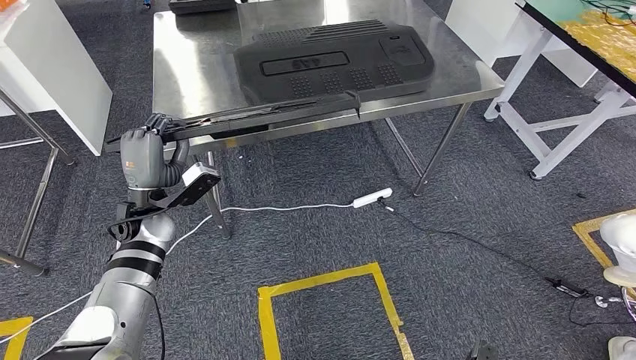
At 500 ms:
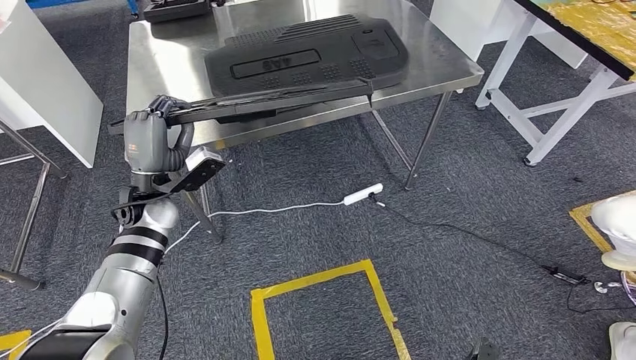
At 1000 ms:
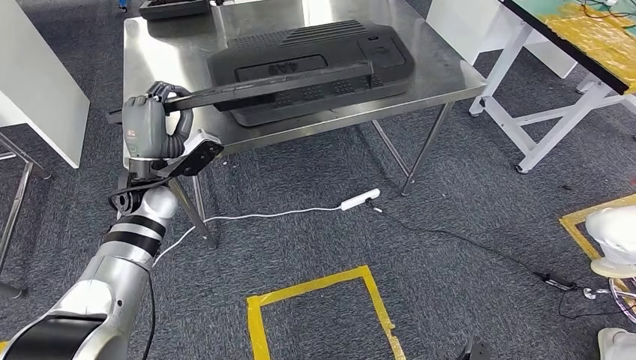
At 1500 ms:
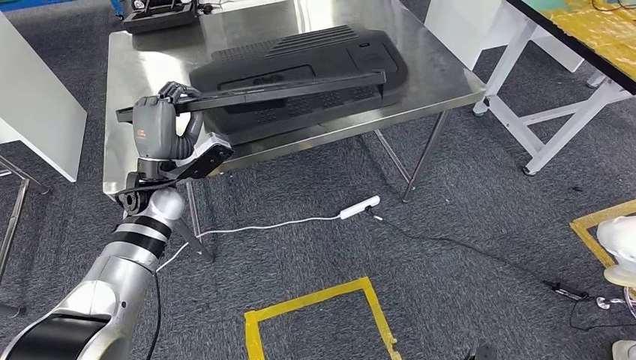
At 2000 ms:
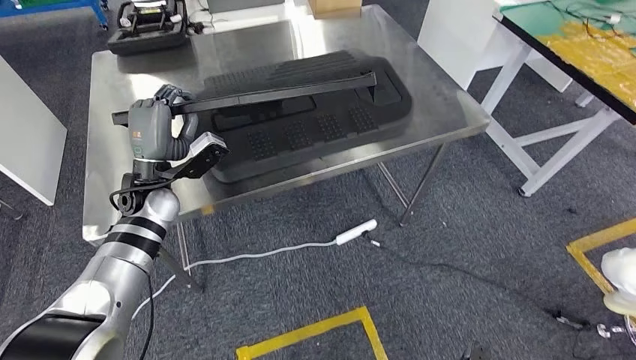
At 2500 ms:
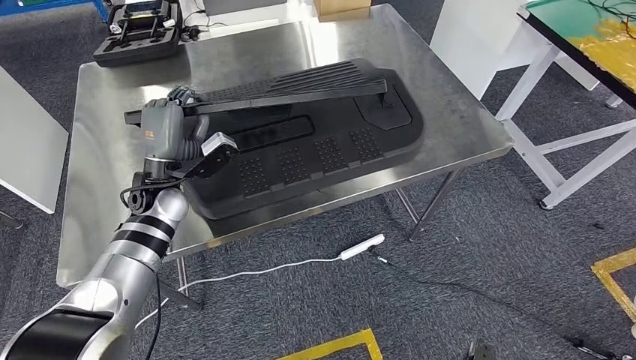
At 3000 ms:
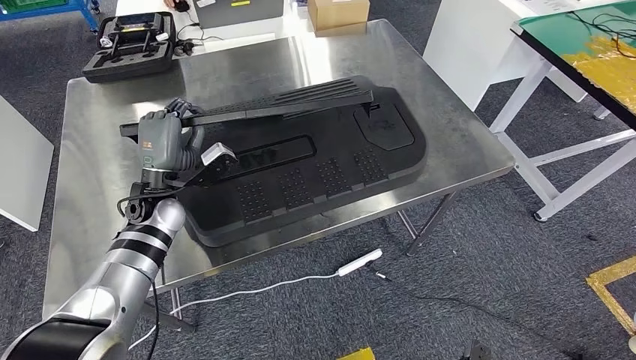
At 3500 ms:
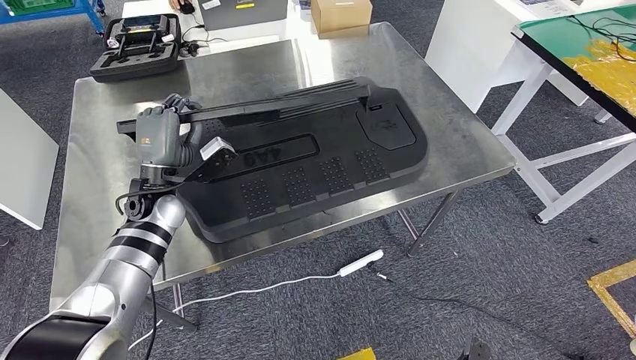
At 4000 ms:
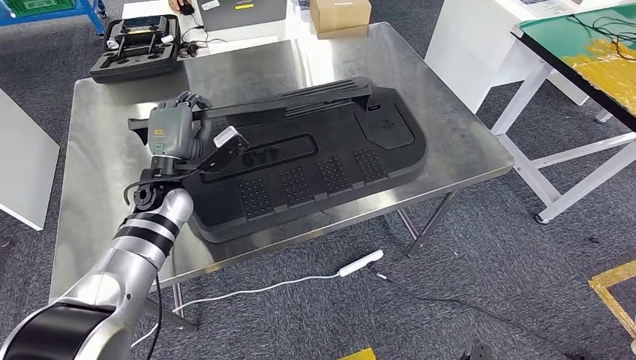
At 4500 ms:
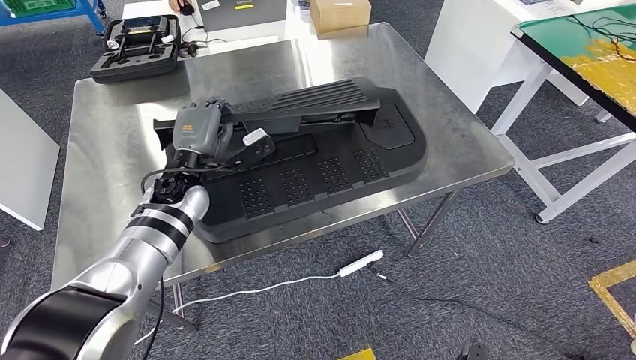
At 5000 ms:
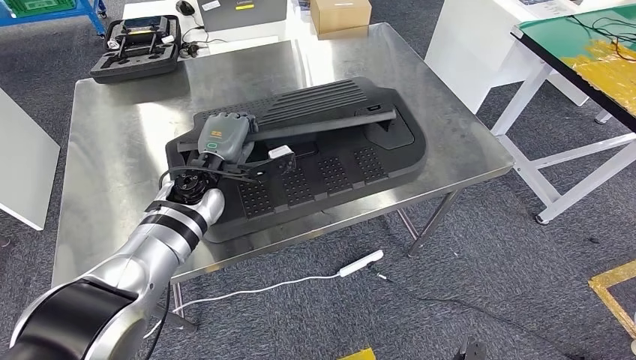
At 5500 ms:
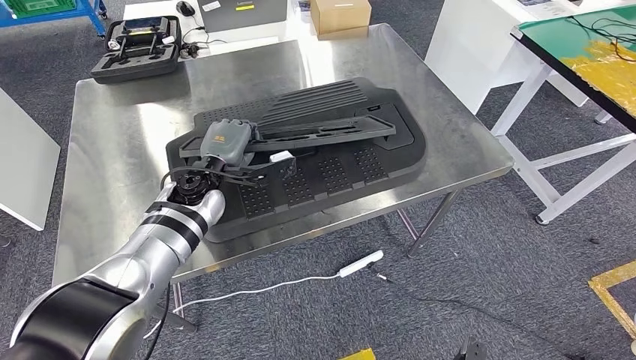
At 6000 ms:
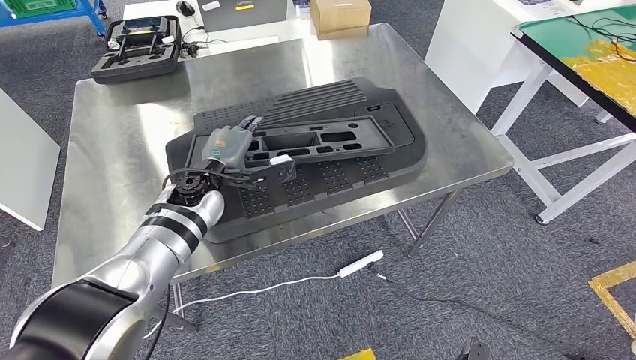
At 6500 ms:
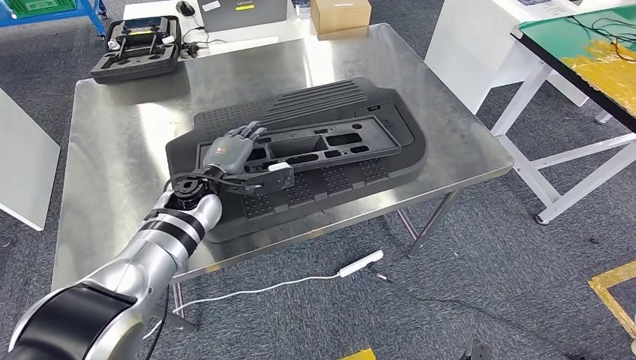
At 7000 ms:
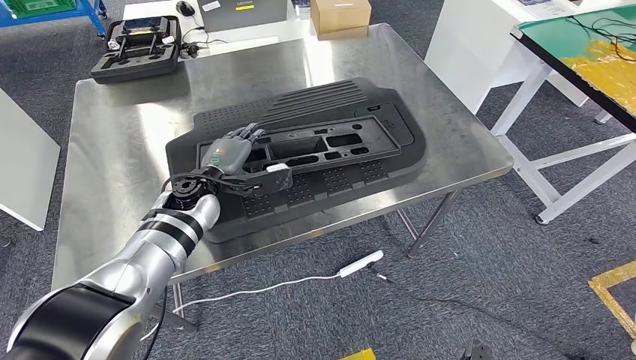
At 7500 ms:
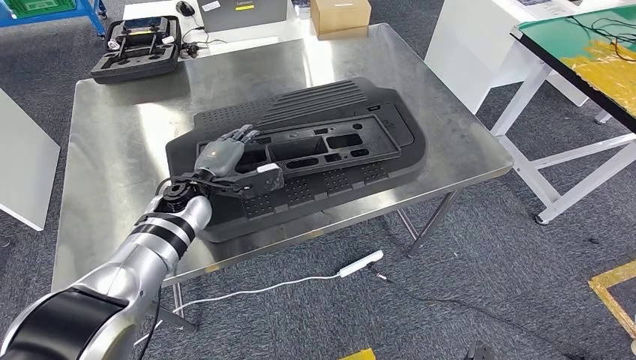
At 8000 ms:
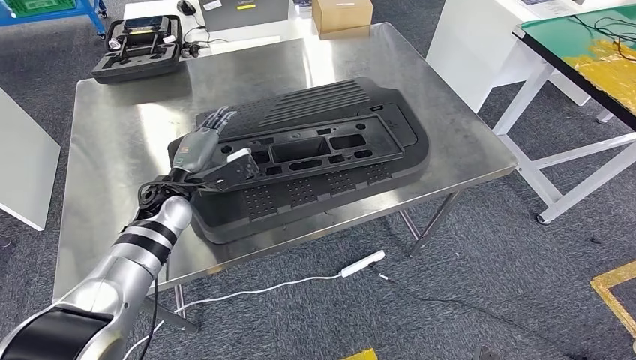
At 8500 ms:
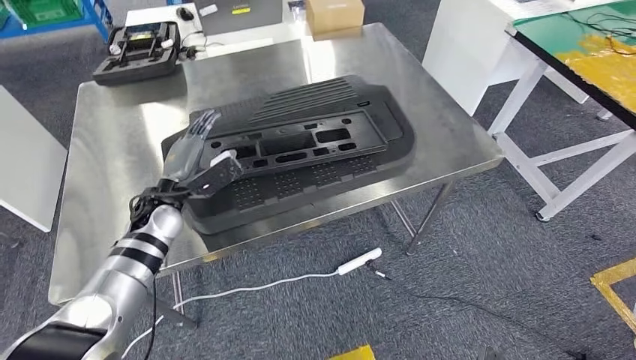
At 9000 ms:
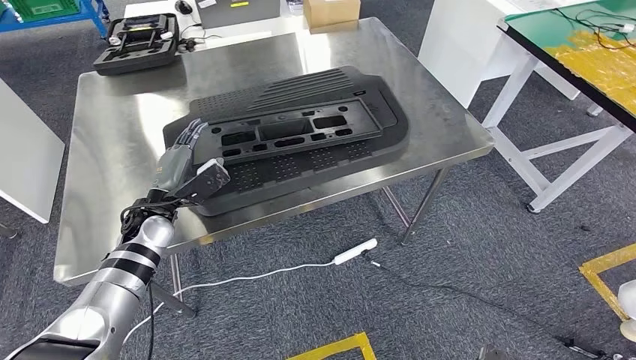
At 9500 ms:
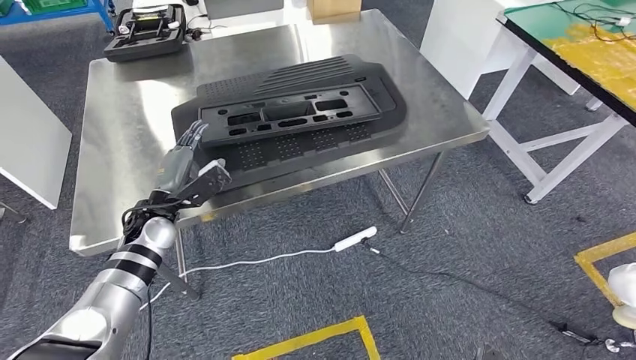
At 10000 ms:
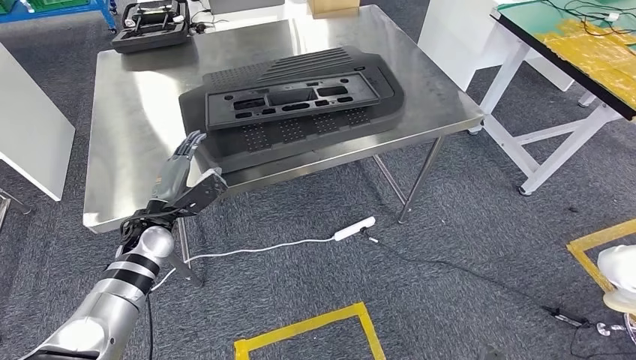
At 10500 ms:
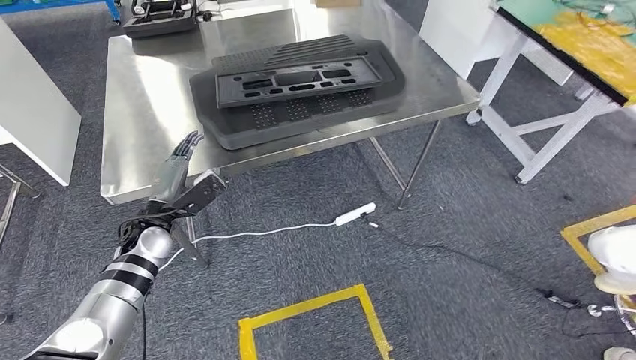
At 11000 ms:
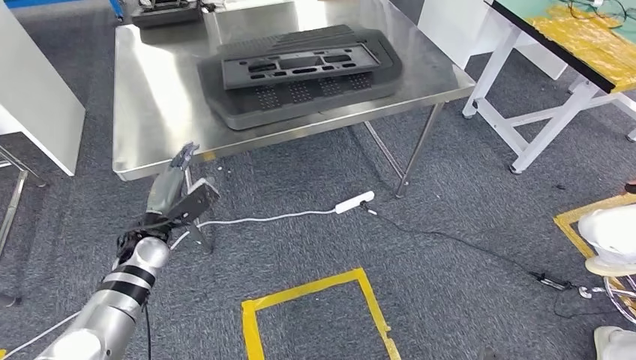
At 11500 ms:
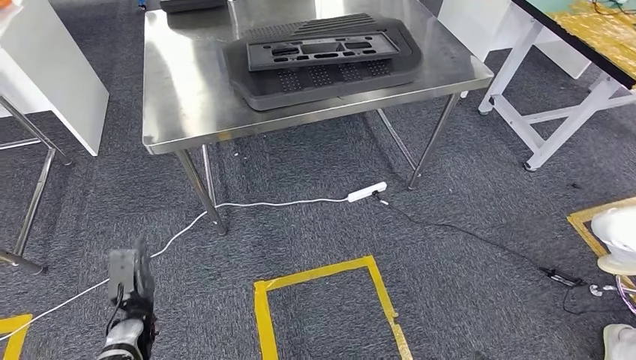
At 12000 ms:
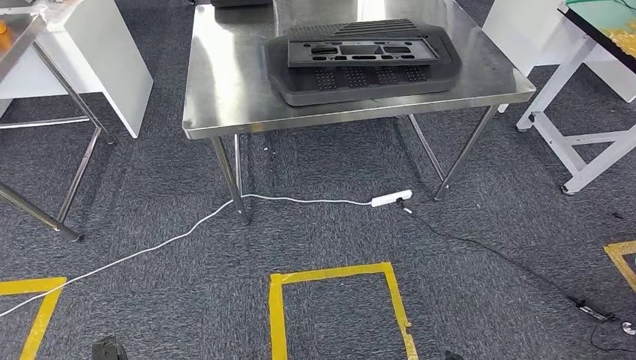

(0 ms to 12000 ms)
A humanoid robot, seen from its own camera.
Step, 0 ms - 2000 ms: Move the large material to the workbench.
Step, 2500 ms - 10500 ms: Insert the large material into the corresponding slot on the workbench.
4000 ms - 6000 ms: The left hand moves to the right, roughly 5 cm.
6000 ms - 8000 ms: The left hand shifts about 5 cm to the left.

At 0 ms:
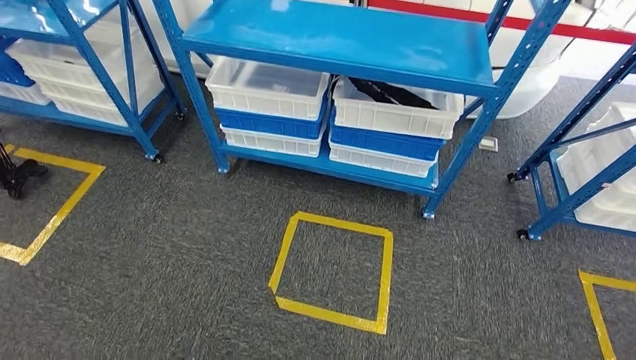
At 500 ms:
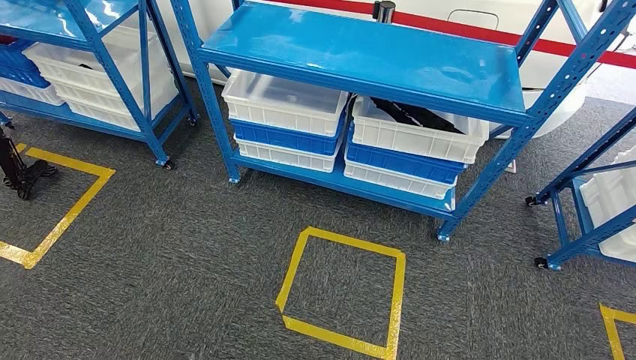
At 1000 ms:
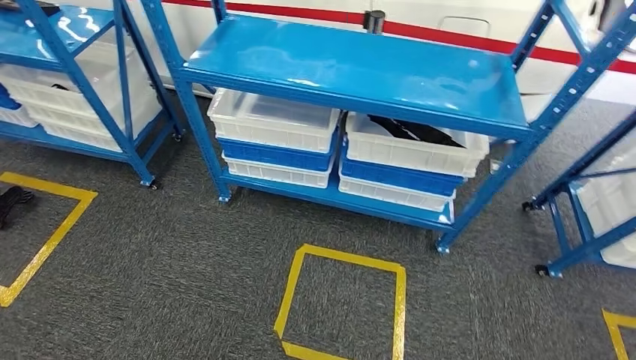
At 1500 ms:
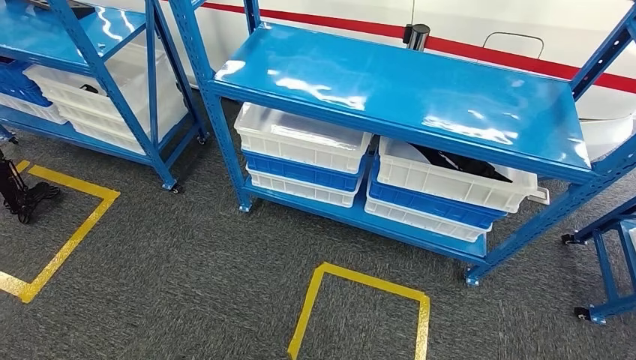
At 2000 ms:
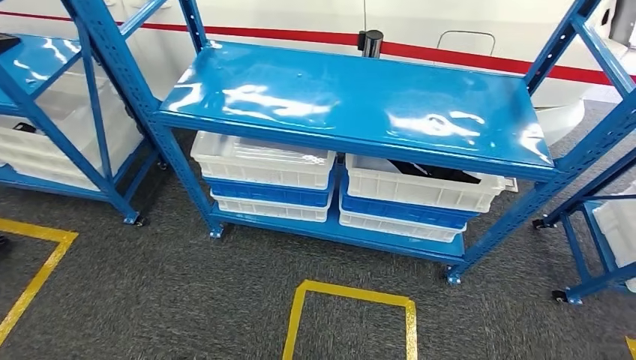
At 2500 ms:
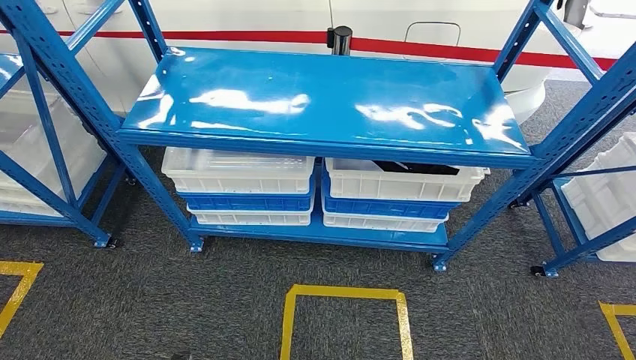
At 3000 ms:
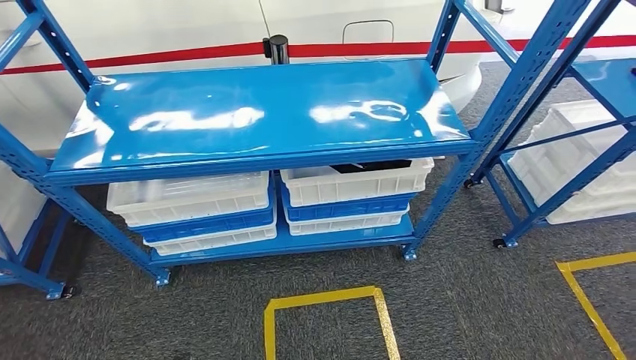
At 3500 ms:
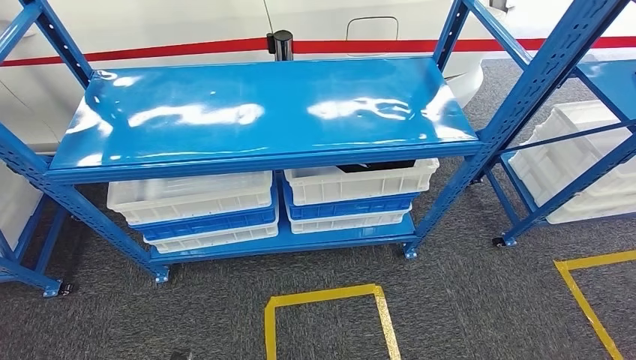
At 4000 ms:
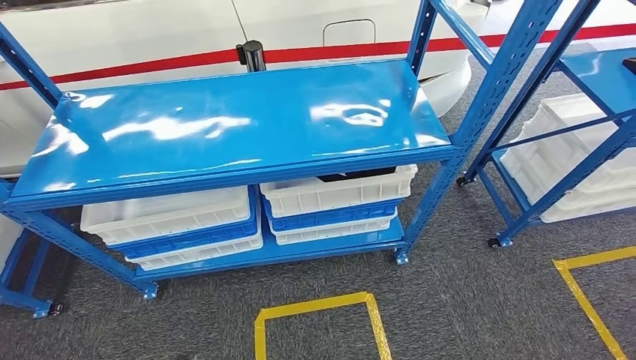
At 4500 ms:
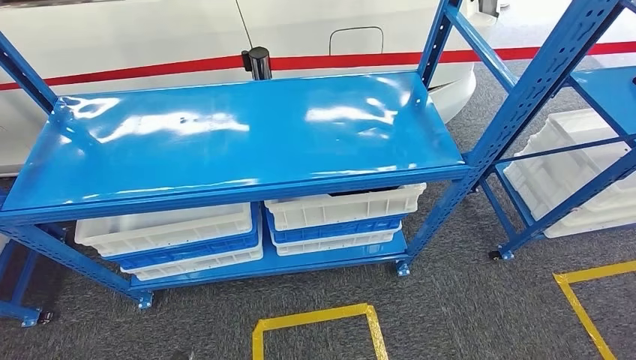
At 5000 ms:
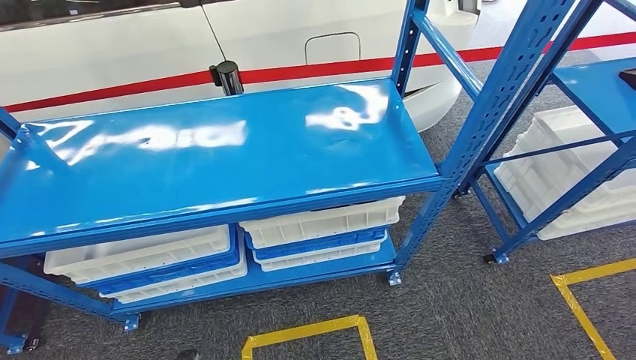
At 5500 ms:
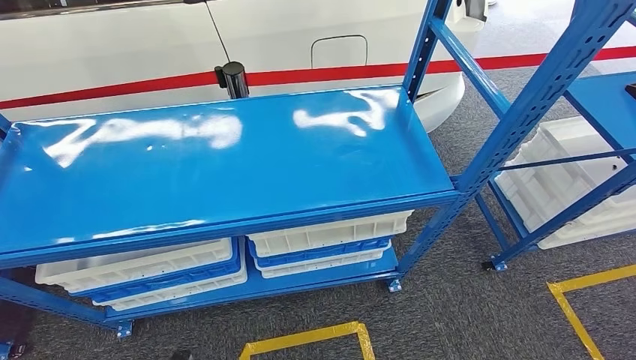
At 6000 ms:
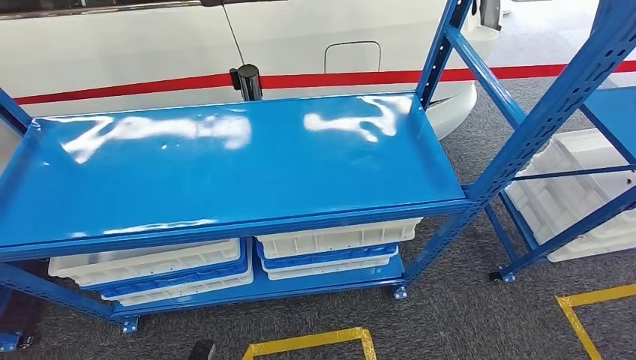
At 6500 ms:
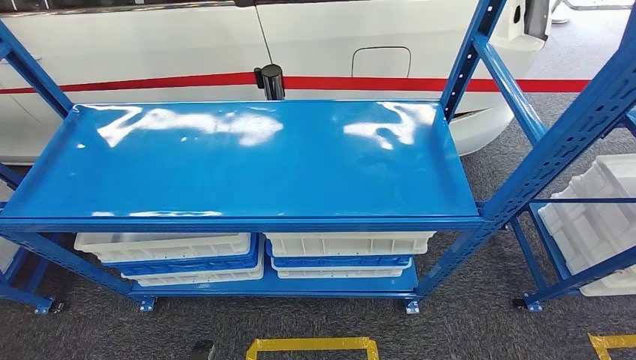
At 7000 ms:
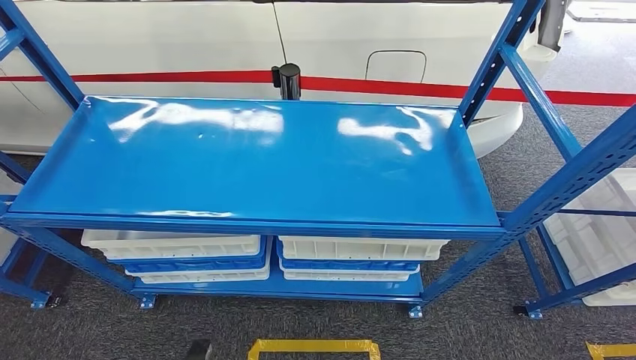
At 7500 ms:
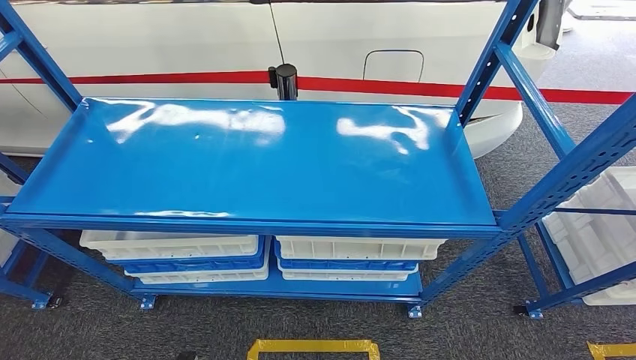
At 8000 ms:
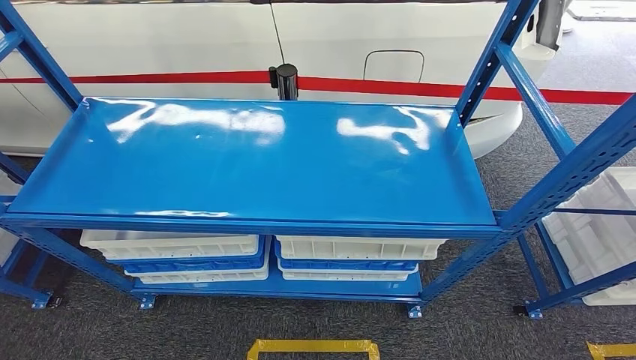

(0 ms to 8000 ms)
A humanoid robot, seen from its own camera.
Step, 0 ms - 8000 ms: Return to the initial position at the shelf.
